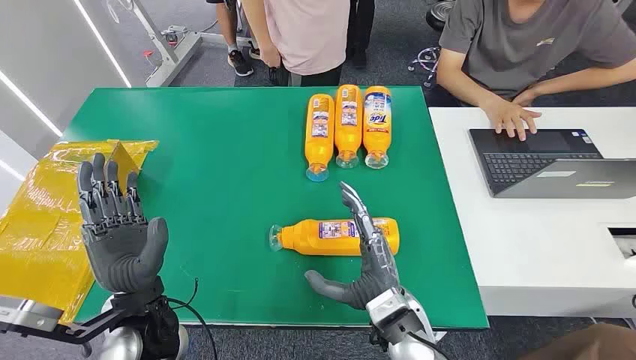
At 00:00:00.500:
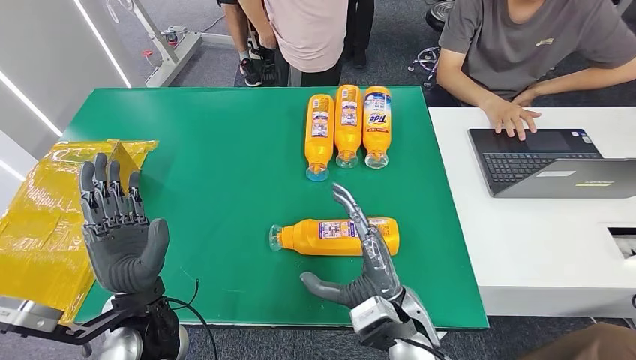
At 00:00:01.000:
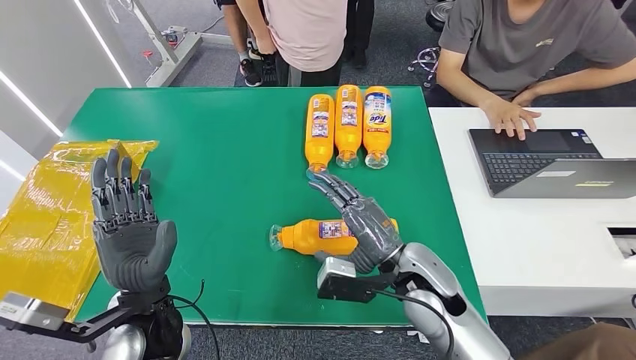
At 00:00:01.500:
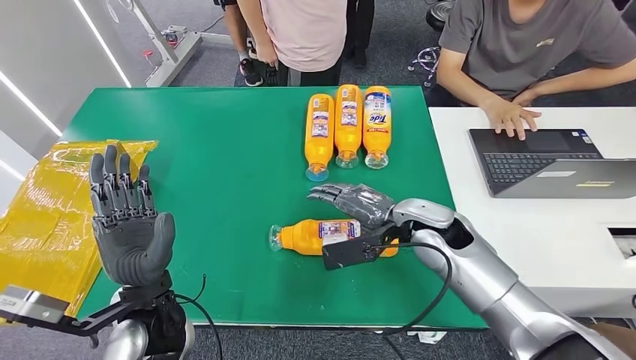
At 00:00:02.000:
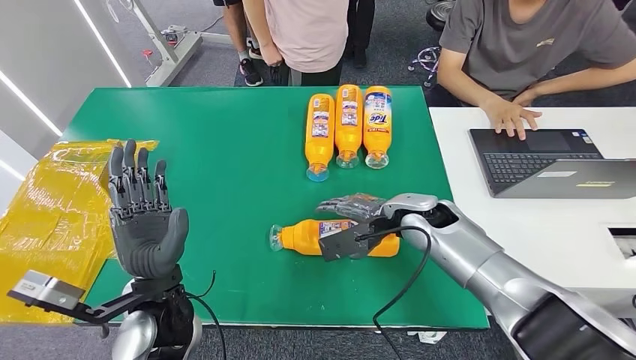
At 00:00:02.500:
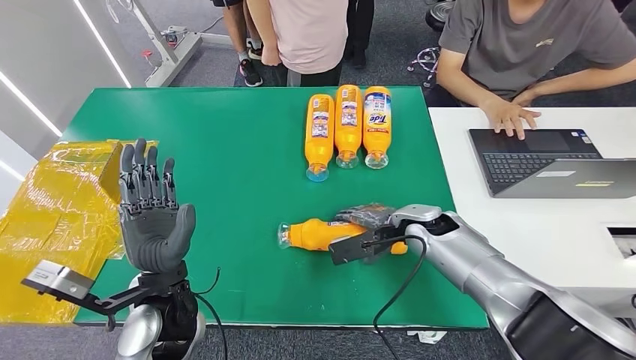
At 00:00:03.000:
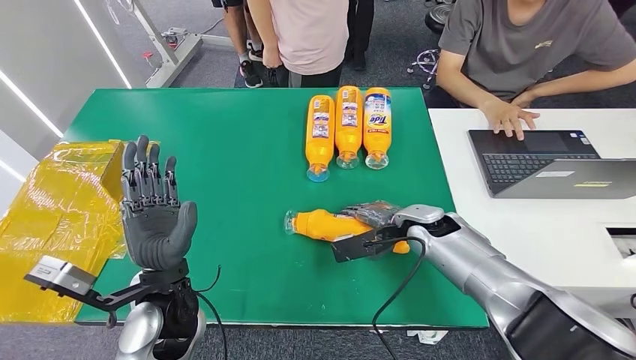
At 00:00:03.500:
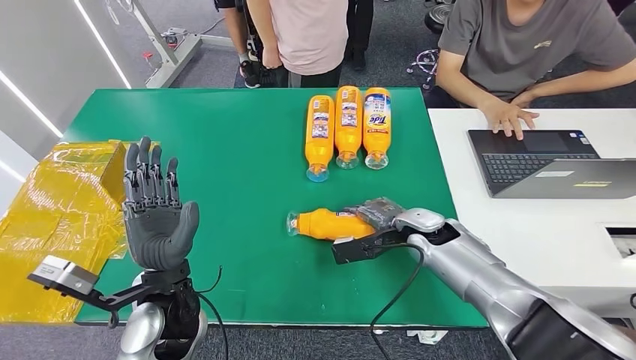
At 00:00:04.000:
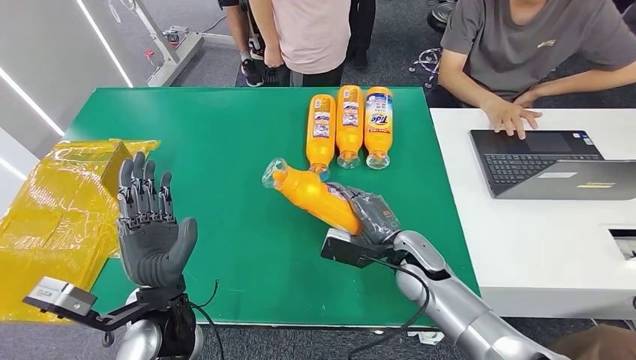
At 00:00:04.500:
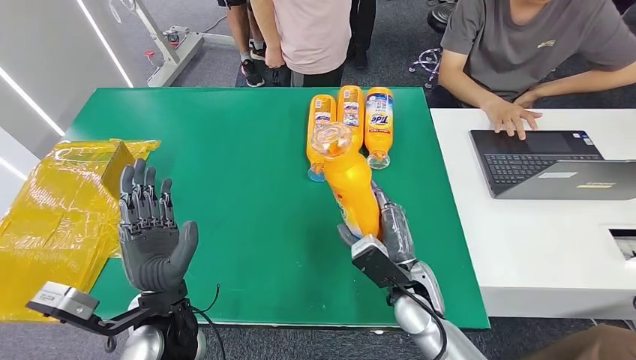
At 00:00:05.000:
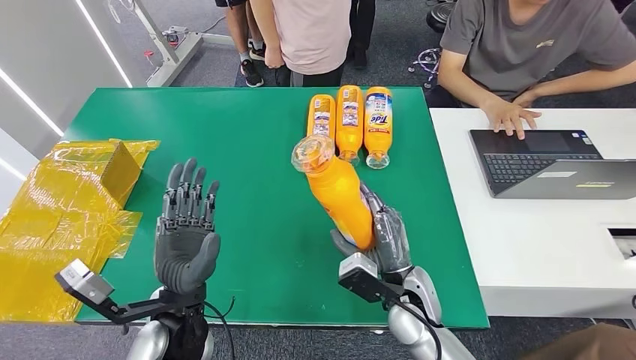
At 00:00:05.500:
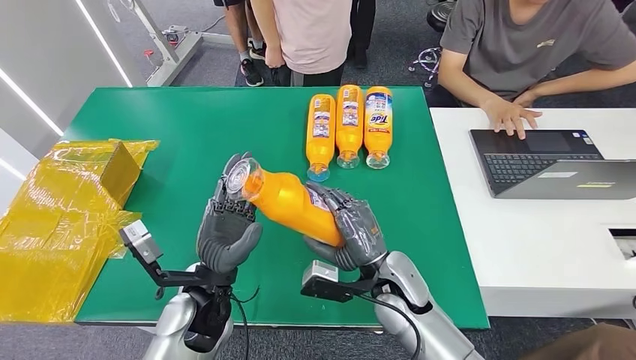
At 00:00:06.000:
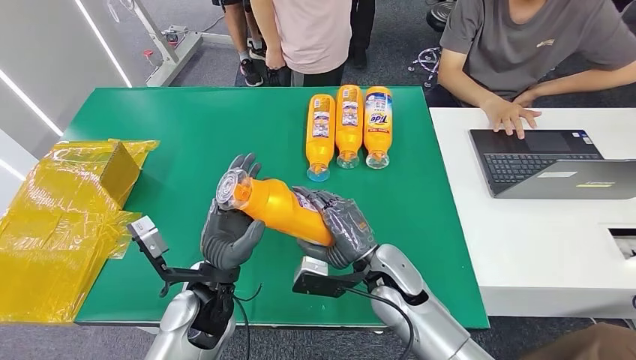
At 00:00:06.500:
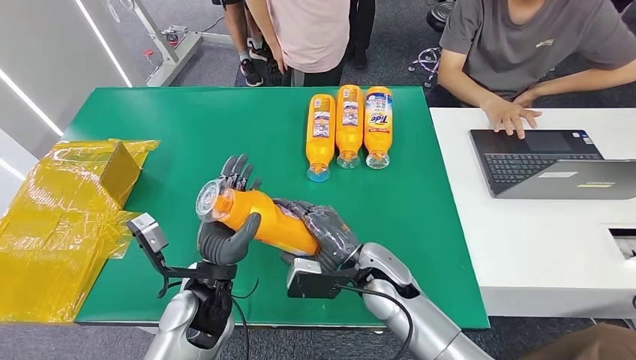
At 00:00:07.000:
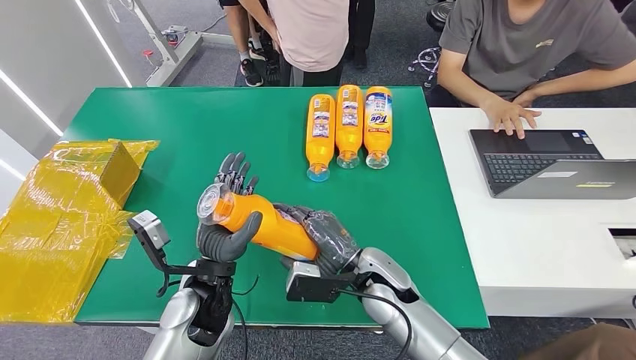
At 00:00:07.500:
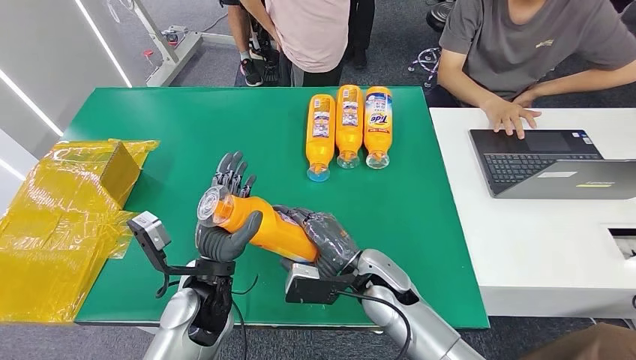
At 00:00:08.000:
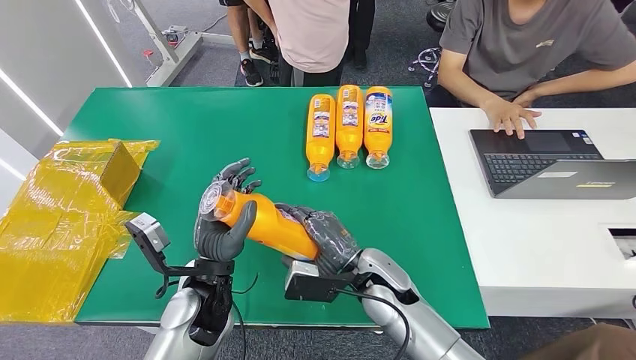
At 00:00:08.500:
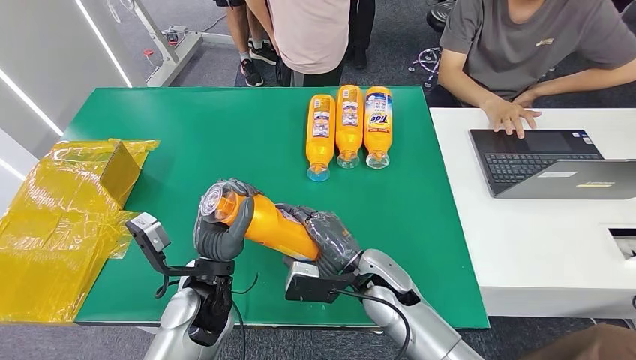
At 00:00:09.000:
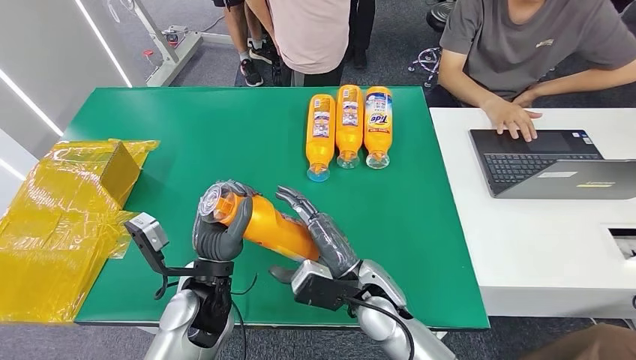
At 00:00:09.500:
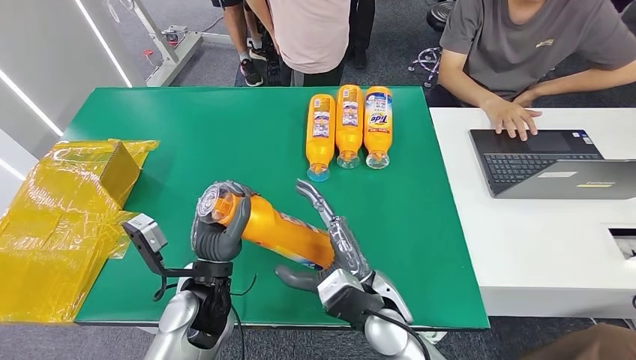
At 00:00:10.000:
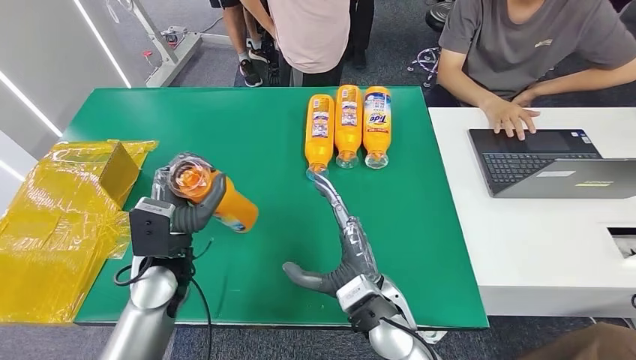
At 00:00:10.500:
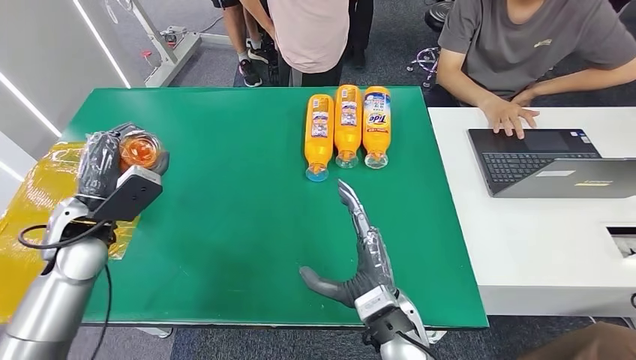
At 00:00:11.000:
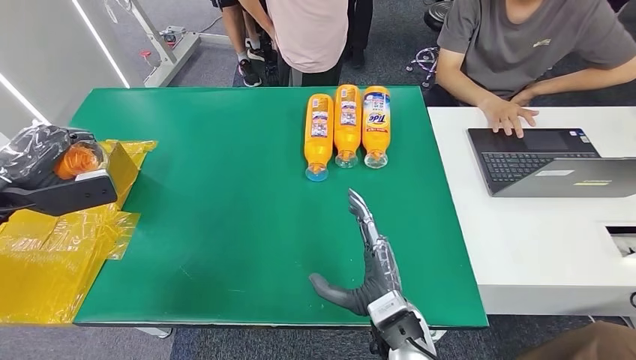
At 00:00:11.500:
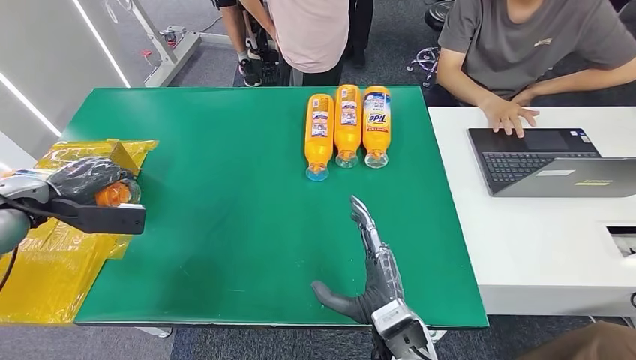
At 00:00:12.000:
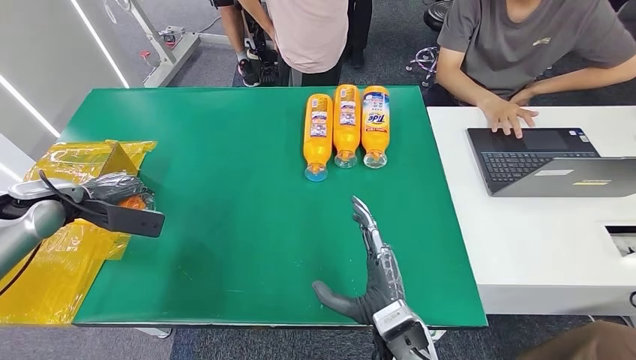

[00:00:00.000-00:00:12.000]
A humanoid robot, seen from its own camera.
Step, 00:00:00.000 to 00:00:07.500: Pick up the bottle from the table.
00:00:04.000 to 00:00:06.000: The left hand ends up about 5 cm from where it was. Meanwhile the right hand is displaced to the left by about 5 cm.
00:00:06.000 to 00:00:08.000: The hands move only a little.
00:00:08.000 to 00:00:10.000: The right hand heads backward, covering roughly 5 cm. The left hand shifts about 5 cm to the left.
00:00:10.000 to 00:00:12.000: The left hand travels to the left and forward by about 25 cm. Meanwhile the right hand ends up about 5 cm from where it was.

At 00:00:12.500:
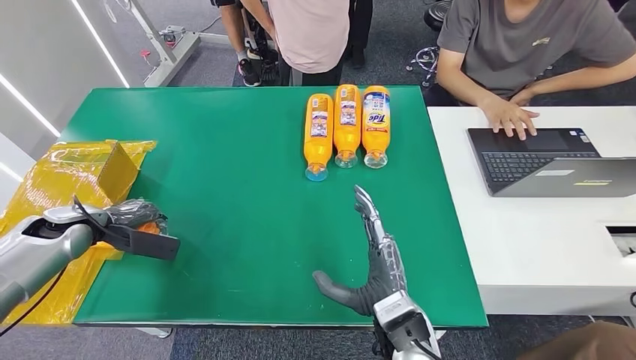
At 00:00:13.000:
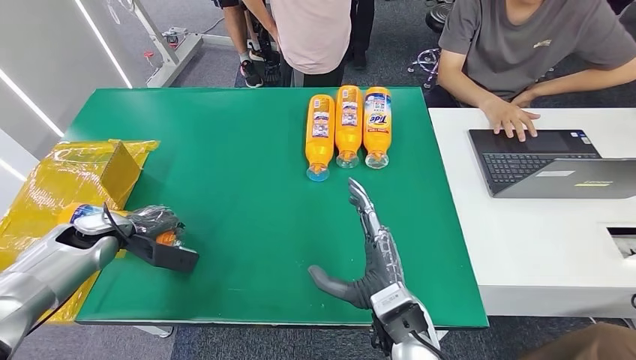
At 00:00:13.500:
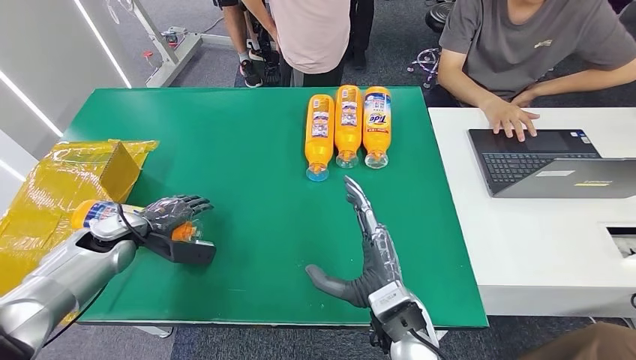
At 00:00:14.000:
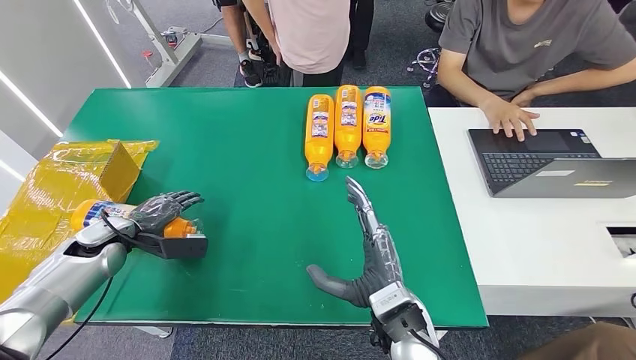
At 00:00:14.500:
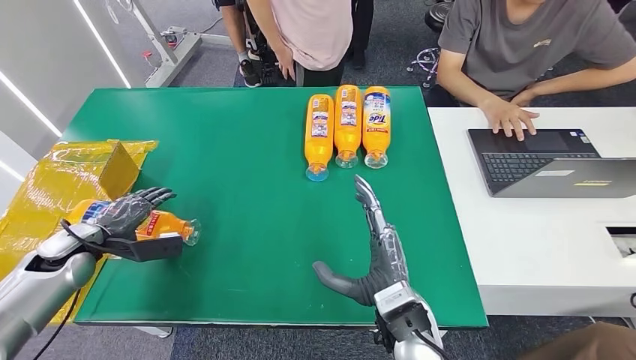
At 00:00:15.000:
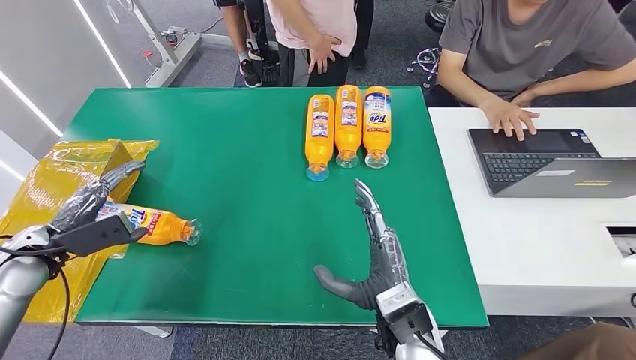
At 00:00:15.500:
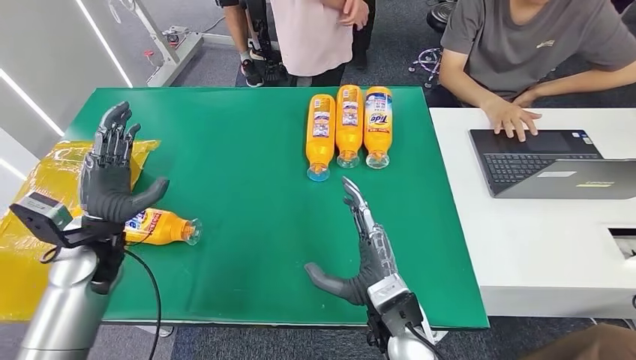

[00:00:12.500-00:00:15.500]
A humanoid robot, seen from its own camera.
Step, 00:00:12.500 to 00:00:15.500: Turn the bottle to the front side.
00:00:12.500 to 00:00:14.000: The left hand ends up roughly 5 cm from where it was.
00:00:14.000 to 00:00:15.500: The left hand is displaced upward and to the right by some 10 cm.

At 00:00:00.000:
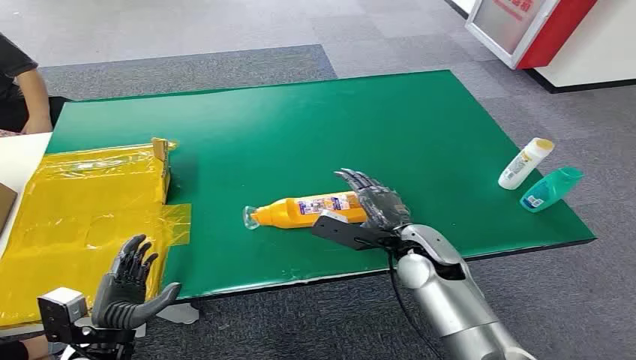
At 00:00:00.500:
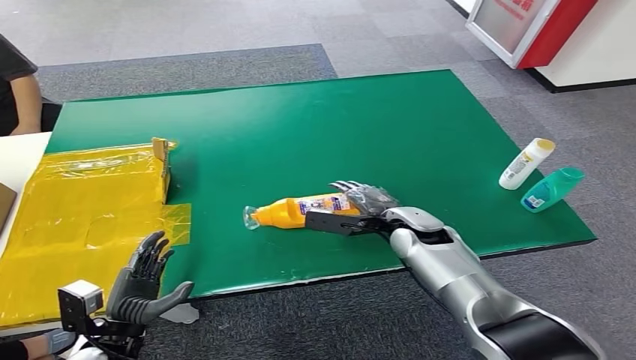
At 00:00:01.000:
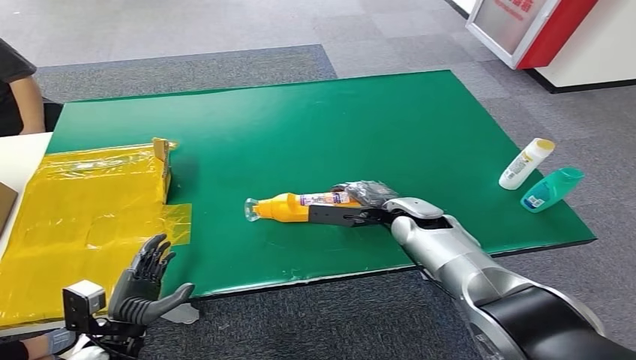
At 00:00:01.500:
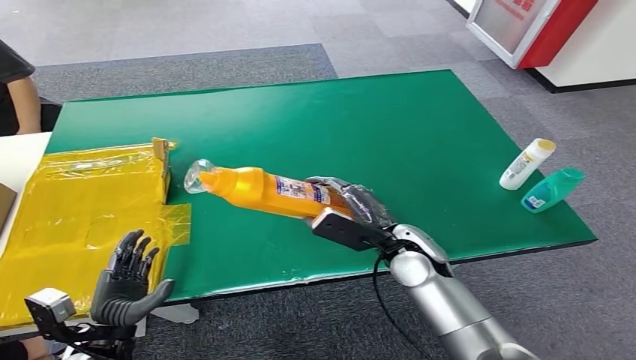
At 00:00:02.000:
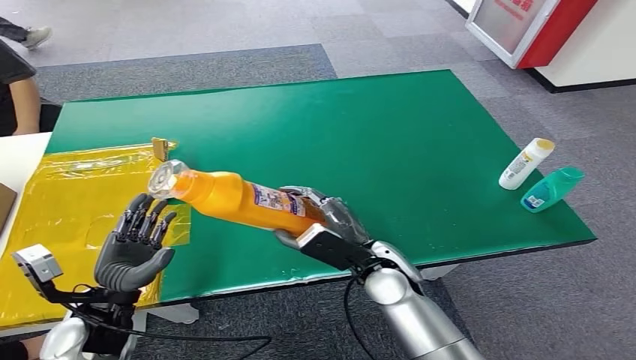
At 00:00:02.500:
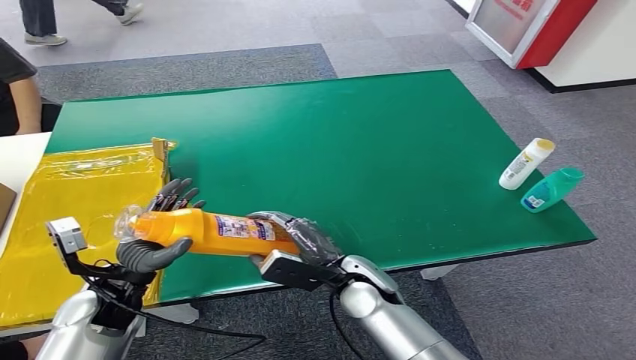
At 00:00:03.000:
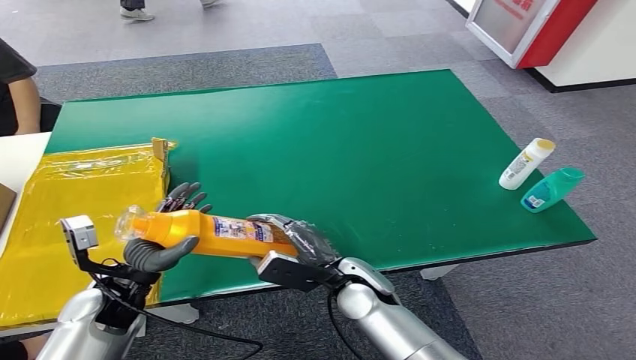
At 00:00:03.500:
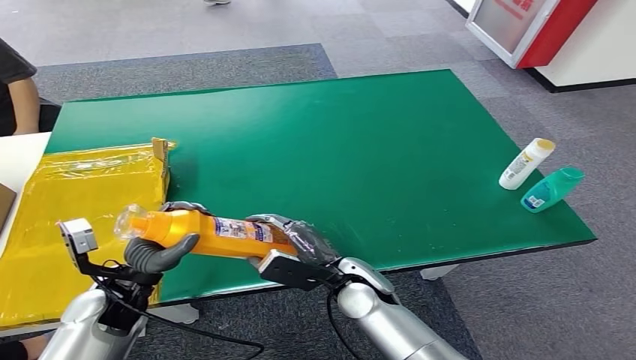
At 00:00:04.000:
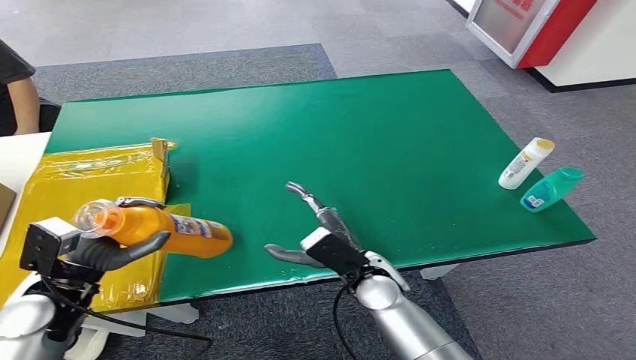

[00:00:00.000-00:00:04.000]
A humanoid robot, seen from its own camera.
Step, 00:00:00.000 to 00:00:01.500: Pick up the bottle from the table.
Step, 00:00:02.000 to 00:00:04.000: Turn the bottle to the front side.
00:00:02.000 to 00:00:04.000: The left hand changes place by about 5 cm.
